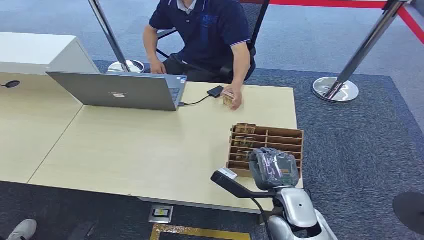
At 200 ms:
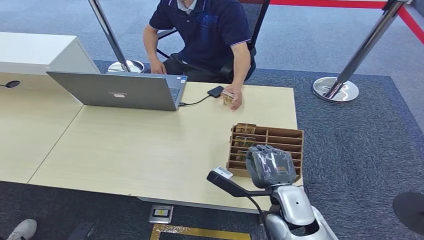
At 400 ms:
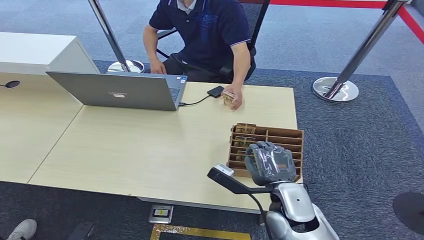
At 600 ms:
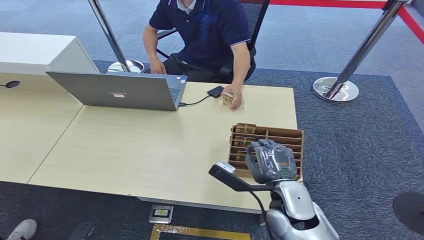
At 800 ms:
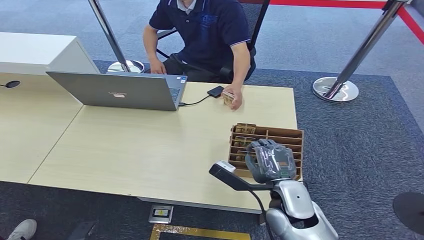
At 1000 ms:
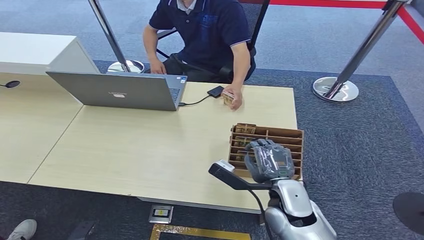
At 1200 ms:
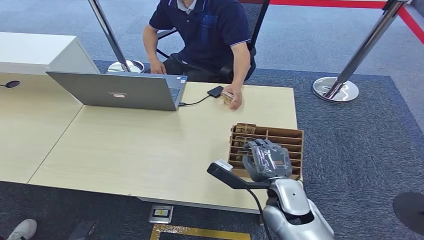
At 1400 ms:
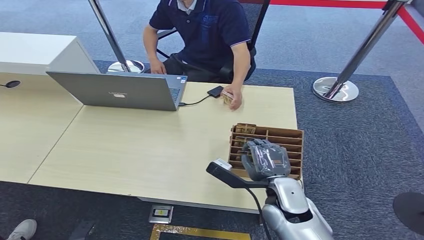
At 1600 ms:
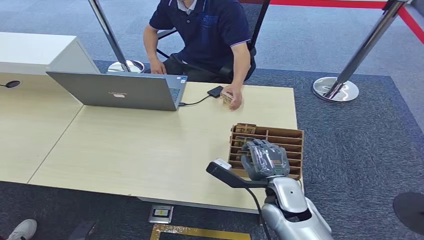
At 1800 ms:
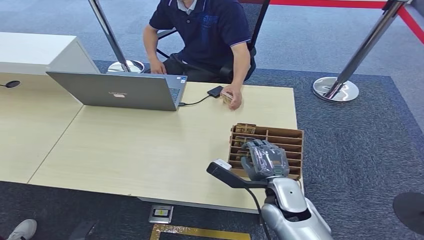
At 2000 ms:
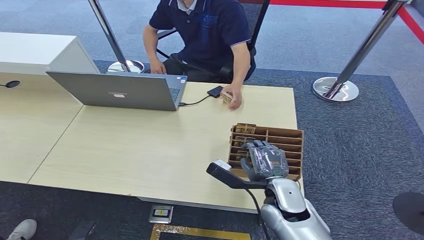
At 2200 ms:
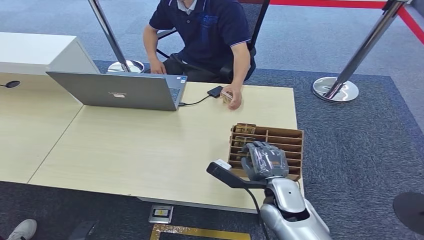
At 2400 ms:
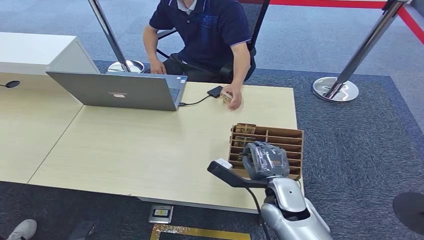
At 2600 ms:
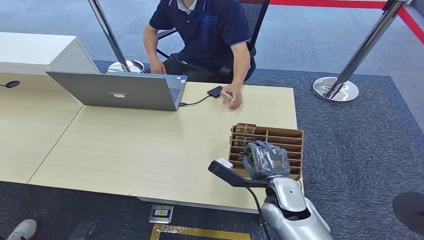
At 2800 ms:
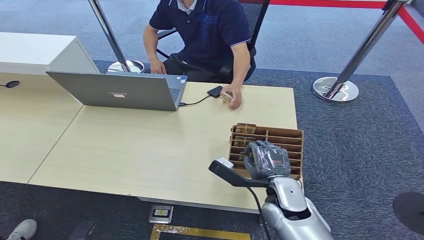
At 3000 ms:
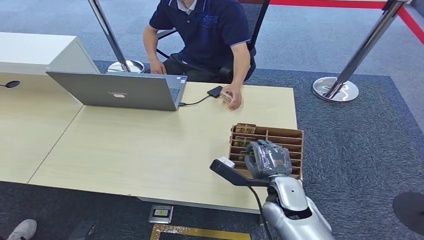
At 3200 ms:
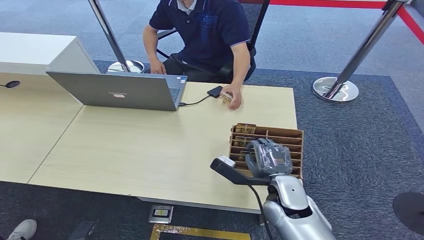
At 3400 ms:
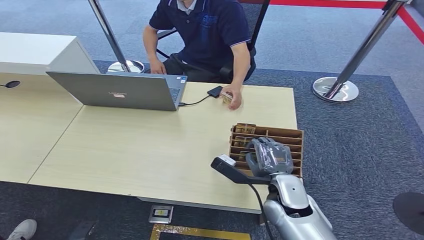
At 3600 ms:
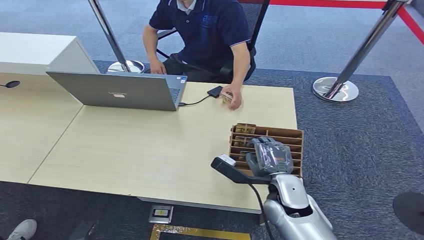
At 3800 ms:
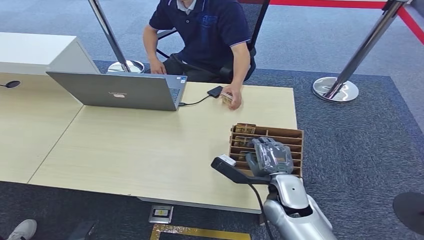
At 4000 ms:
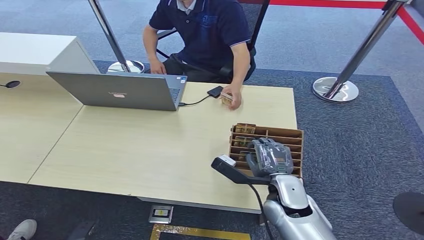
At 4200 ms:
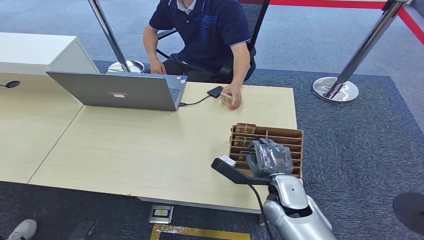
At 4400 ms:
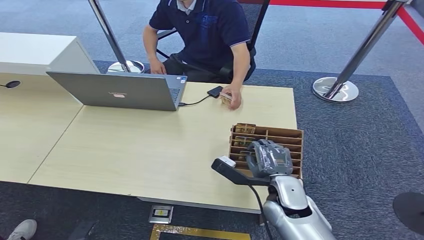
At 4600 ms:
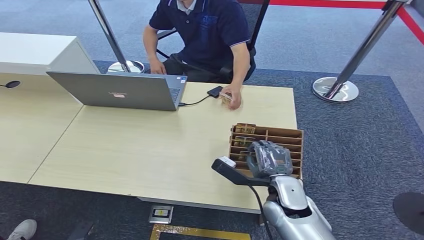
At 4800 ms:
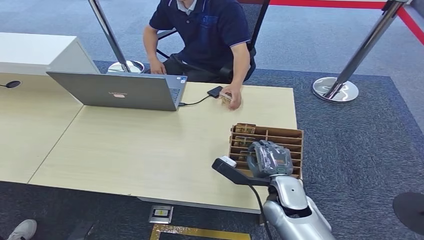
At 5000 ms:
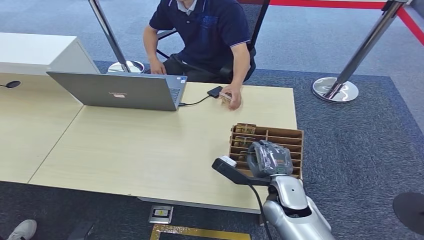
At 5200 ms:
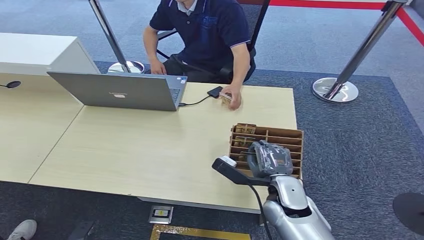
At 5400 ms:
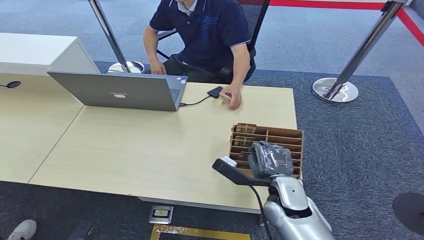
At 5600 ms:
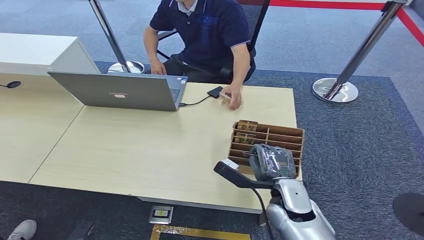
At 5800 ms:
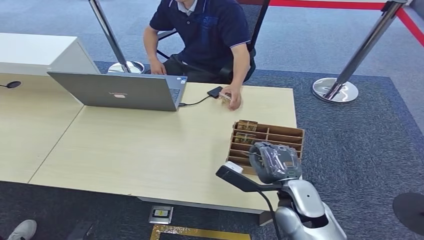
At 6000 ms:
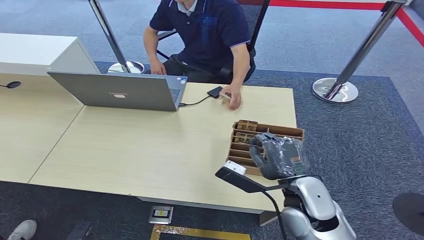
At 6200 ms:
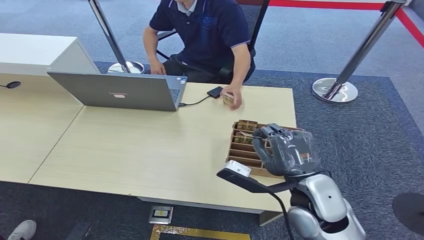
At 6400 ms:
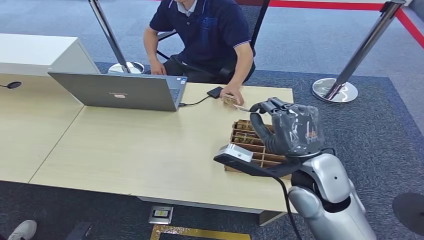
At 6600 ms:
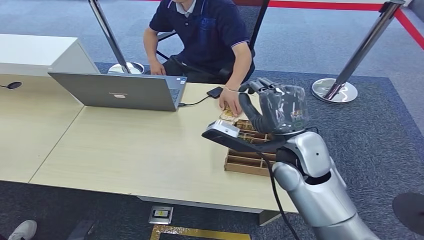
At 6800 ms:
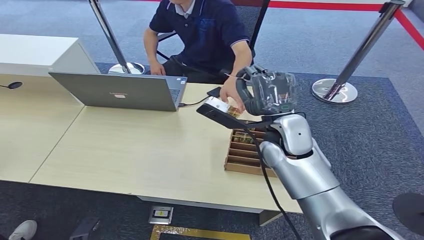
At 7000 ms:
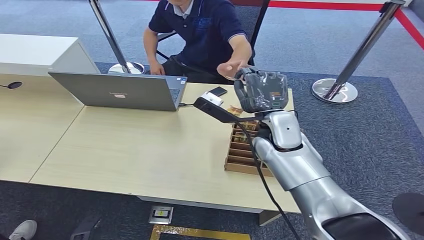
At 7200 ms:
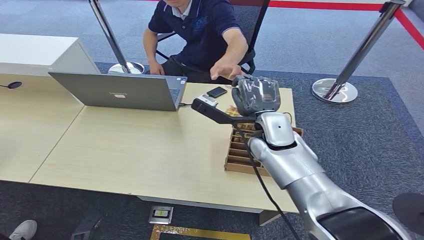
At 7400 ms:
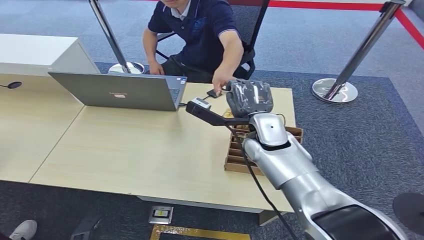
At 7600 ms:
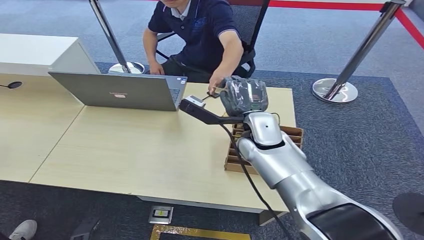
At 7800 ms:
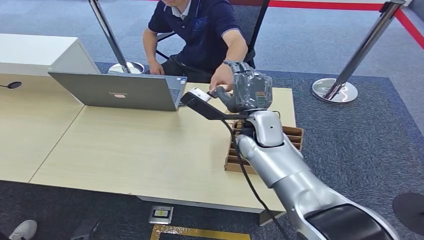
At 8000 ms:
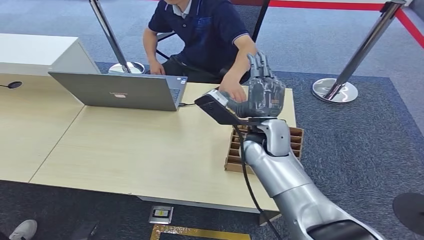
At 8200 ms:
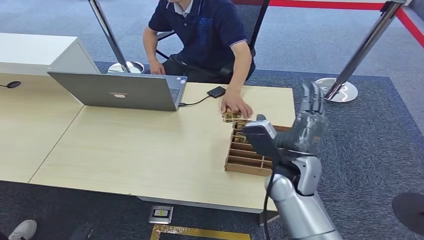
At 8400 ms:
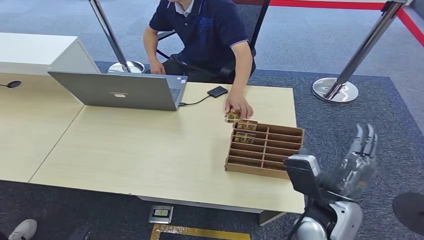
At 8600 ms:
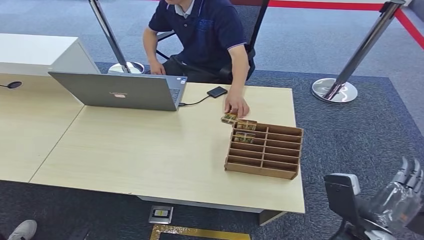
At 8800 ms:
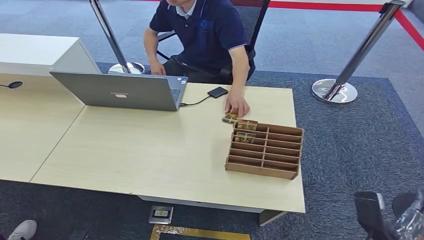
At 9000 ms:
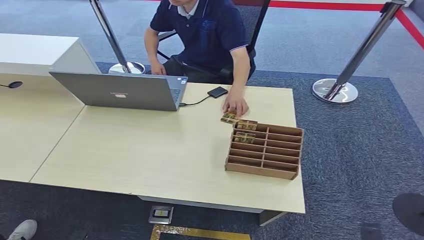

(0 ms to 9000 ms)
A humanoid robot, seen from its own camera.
Step, 0 ms - 5400 ms: Pick up the room card from the card holder.
Step, 5600 ms - 8800 ms: Hand the room card to the target.
1600 ms - 4400 ms: Neither hand changes place.
4400 ms - 6000 ms: The right hand is displaced upward by some 5 cm.
6000 ms - 7600 ms: The right hand is displaced forward and upward by approximately 15 cm.
7600 ms - 9000 ms: The right hand is displaced backward, downward and to the right by roughly 50 cm.

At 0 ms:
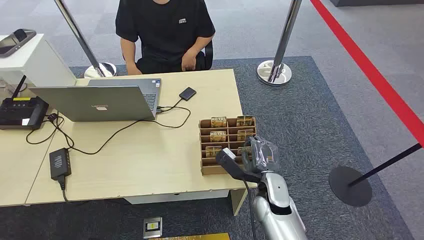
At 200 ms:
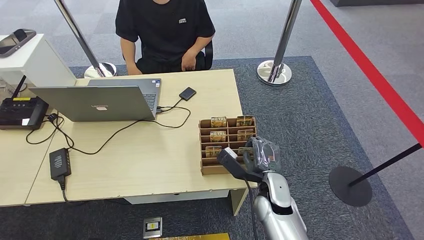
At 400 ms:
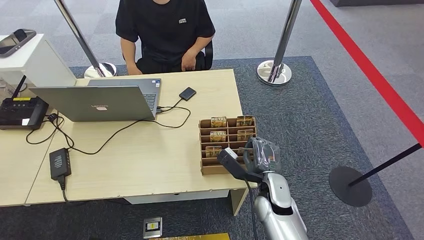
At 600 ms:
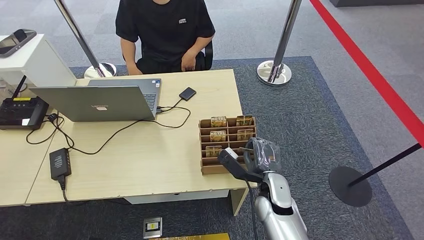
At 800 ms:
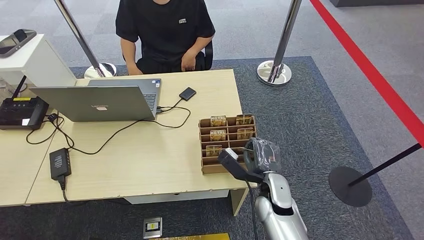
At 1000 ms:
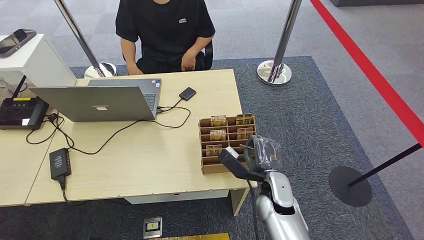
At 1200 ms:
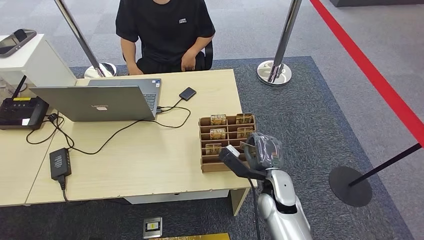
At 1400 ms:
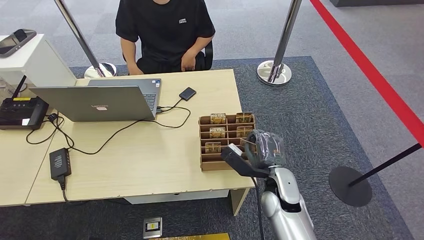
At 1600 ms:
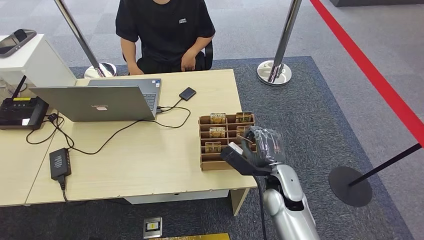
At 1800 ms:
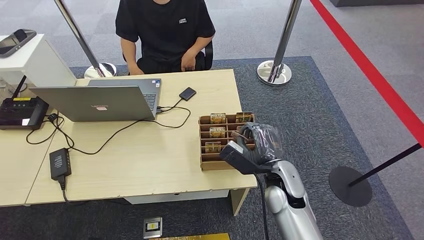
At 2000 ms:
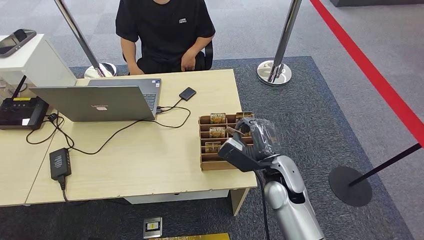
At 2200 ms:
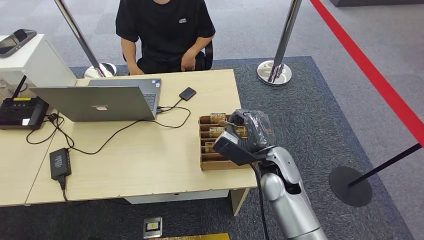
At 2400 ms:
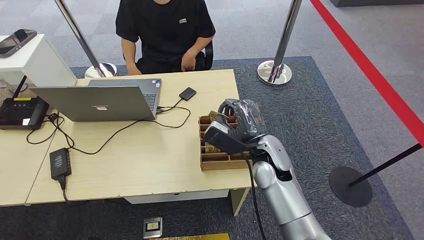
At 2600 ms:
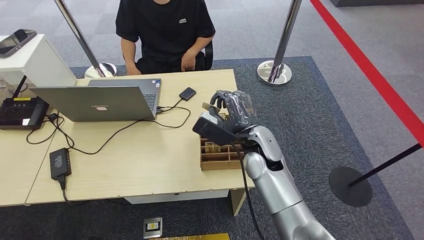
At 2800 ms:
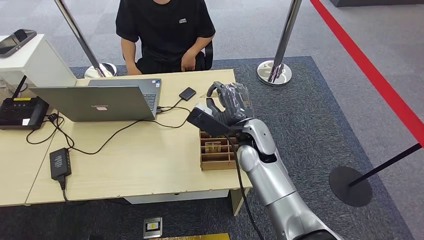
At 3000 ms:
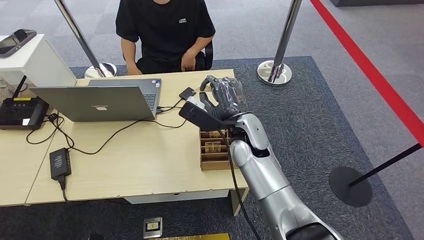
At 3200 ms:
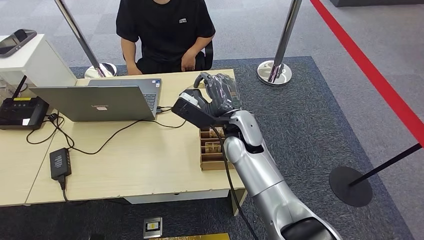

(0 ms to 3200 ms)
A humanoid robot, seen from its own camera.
Step, 0 ms - 1400 ms: Pick up the room card from the card holder.
Step, 1600 ms - 3200 ms: Hand the room card to the target.
1600 ms - 3200 ms: The right hand goes about 15 cm upward, forward and to the left.
